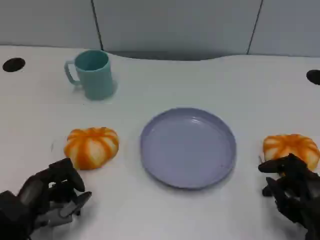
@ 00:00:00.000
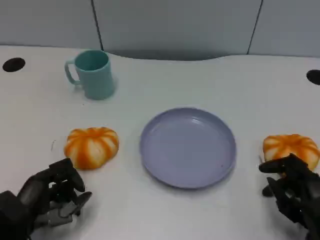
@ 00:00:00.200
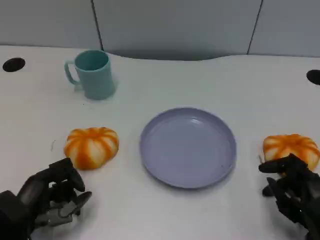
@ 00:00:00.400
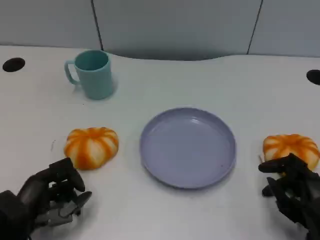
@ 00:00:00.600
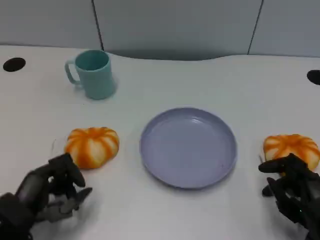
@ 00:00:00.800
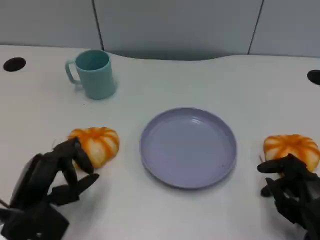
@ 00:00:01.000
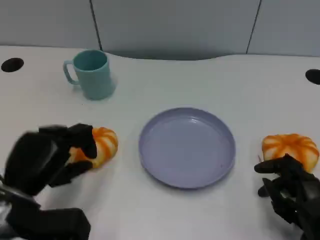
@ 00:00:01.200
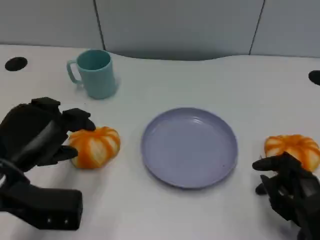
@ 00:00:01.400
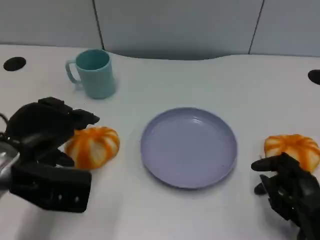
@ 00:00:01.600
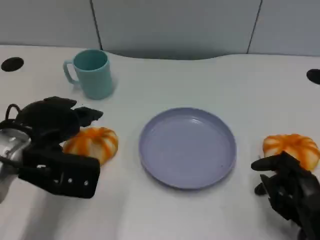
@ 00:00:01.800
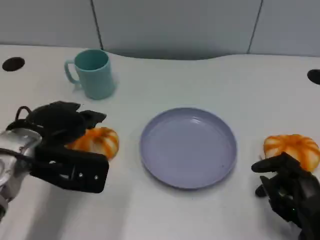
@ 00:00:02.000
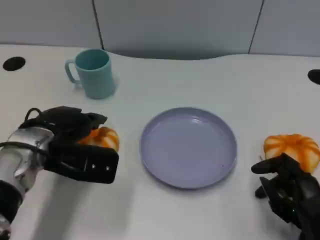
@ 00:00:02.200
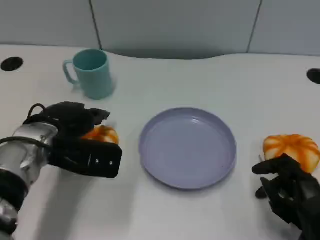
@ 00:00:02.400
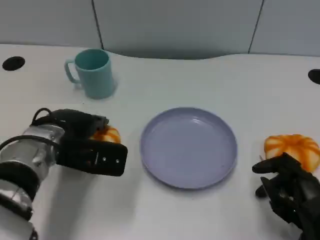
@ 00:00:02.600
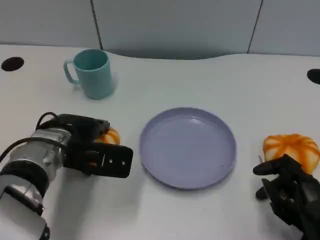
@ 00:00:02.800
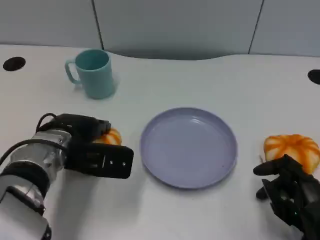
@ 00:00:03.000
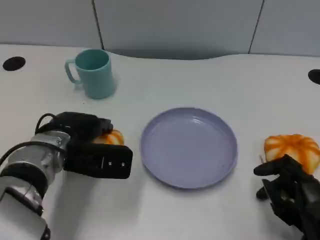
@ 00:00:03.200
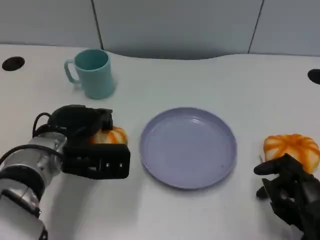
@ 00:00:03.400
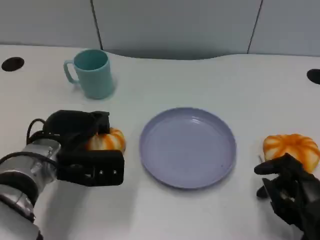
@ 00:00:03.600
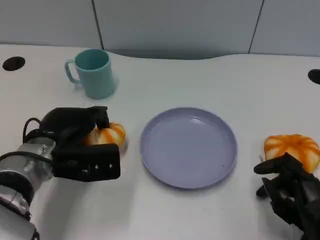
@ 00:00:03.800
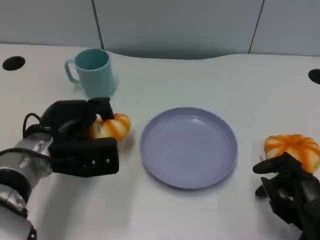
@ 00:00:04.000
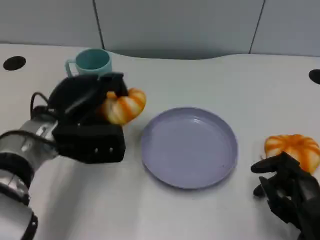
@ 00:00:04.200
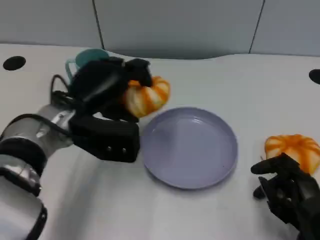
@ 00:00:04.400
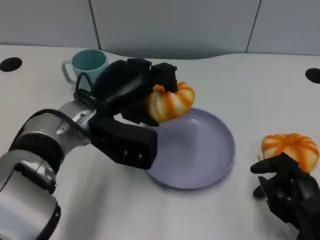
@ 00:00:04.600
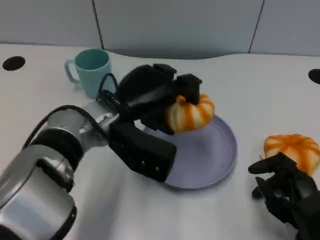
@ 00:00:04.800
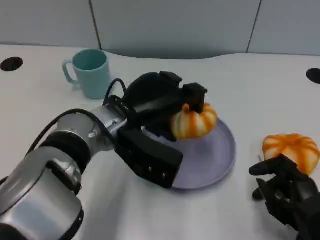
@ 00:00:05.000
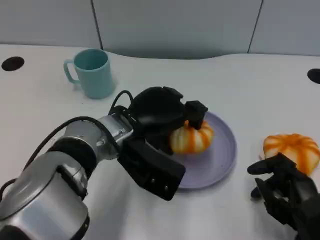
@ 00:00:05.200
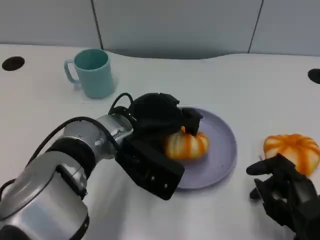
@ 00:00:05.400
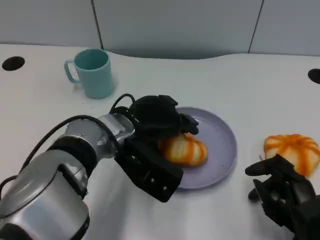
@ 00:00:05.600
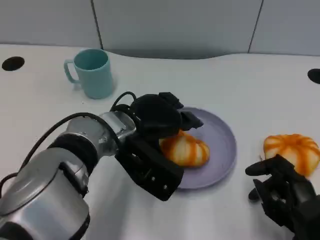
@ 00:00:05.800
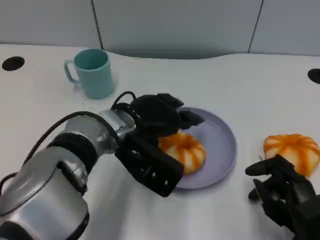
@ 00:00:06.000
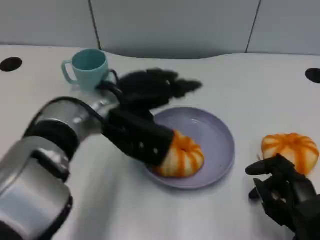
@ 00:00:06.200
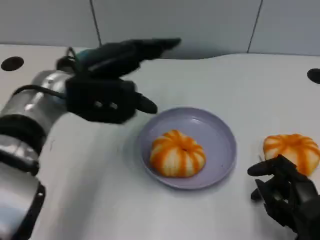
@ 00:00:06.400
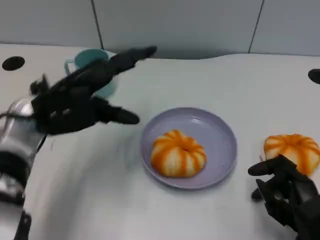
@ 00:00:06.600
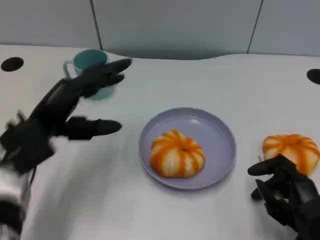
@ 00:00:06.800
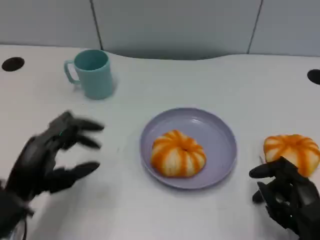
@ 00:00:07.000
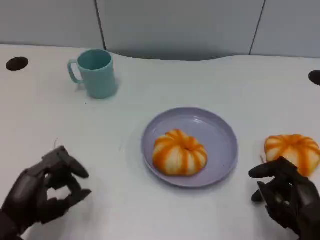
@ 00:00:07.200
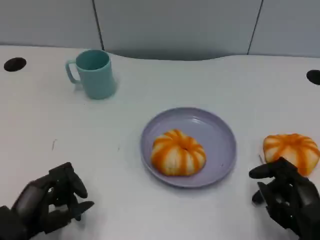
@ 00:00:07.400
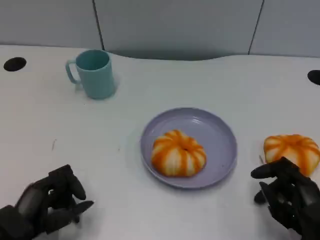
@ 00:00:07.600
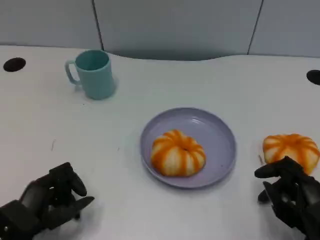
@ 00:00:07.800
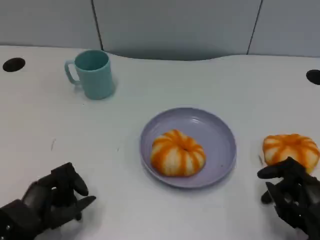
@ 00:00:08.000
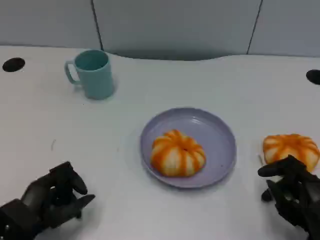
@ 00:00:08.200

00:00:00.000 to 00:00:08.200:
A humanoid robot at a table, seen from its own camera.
Task of the whole recording: Grasp the bread from the table and place it into the plate.
00:00:00.000 to 00:00:01.600: The left hand goes roughly 15 cm upward and forward.
00:00:01.600 to 00:00:03.200: The left hand moves to the right, approximately 5 cm.
00:00:03.200 to 00:00:05.000: The left hand is displaced to the right by roughly 10 cm.
00:00:05.000 to 00:00:06.600: The left hand heads to the left, covering roughly 10 cm.
00:00:06.600 to 00:00:08.200: The left hand heads downward and backward, covering about 20 cm.

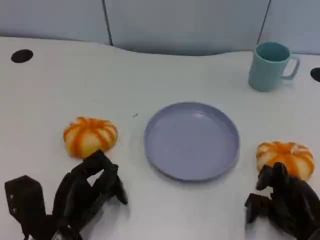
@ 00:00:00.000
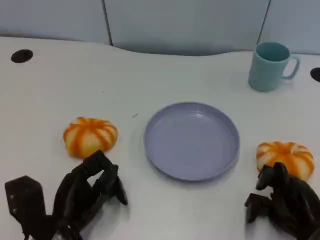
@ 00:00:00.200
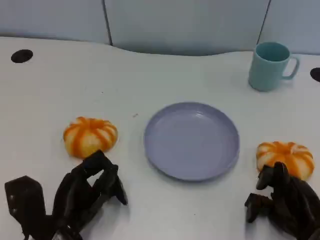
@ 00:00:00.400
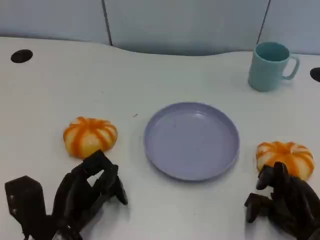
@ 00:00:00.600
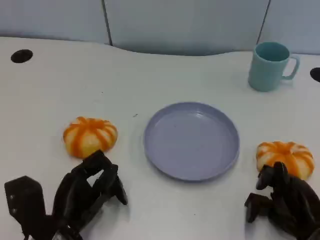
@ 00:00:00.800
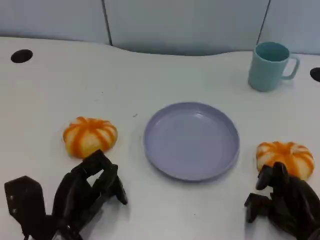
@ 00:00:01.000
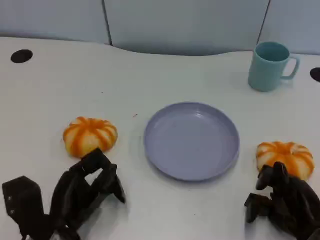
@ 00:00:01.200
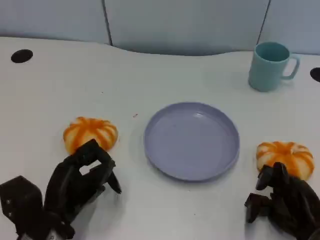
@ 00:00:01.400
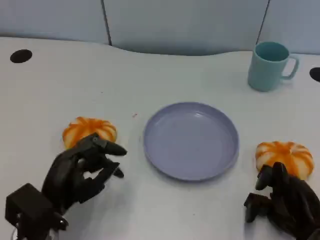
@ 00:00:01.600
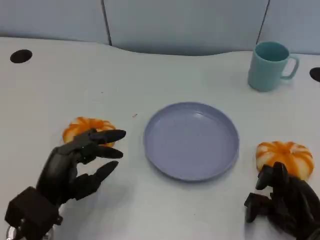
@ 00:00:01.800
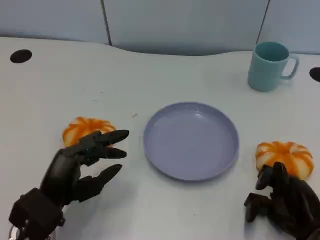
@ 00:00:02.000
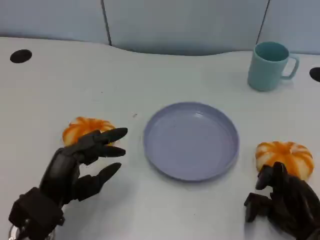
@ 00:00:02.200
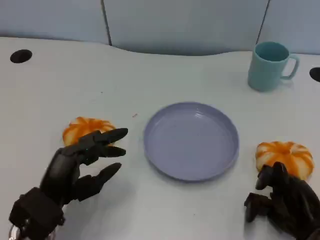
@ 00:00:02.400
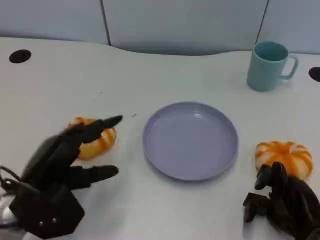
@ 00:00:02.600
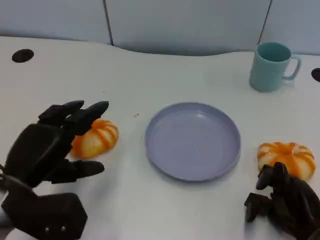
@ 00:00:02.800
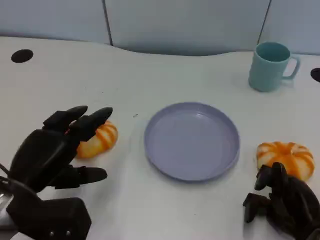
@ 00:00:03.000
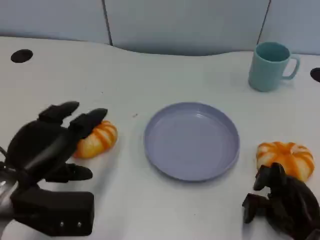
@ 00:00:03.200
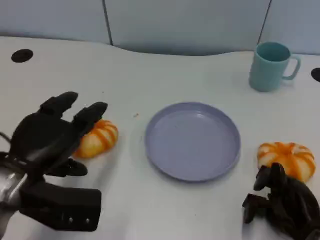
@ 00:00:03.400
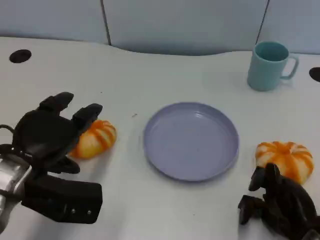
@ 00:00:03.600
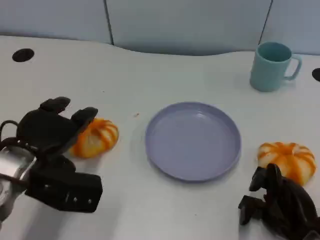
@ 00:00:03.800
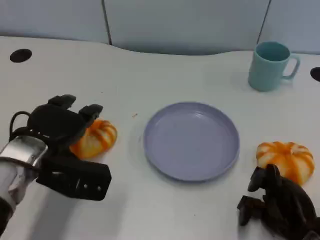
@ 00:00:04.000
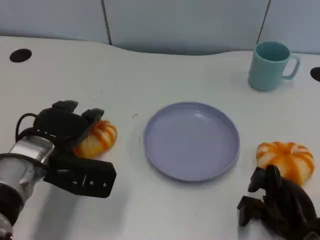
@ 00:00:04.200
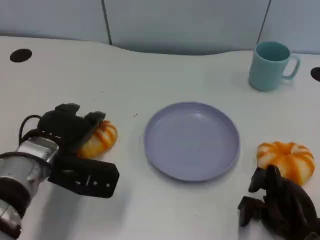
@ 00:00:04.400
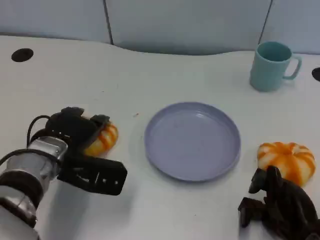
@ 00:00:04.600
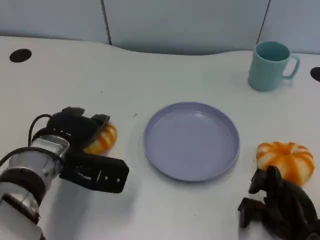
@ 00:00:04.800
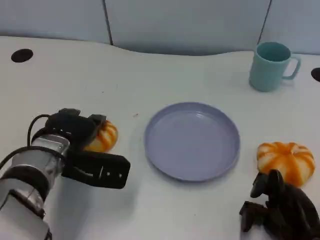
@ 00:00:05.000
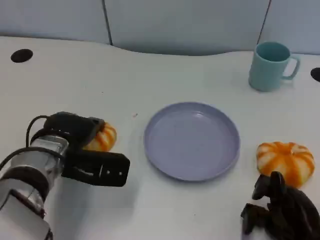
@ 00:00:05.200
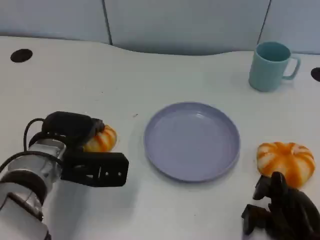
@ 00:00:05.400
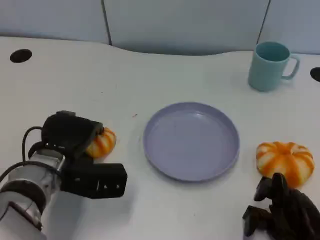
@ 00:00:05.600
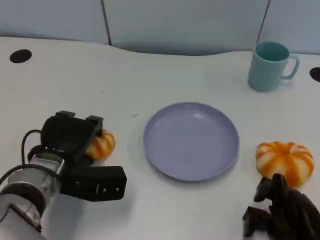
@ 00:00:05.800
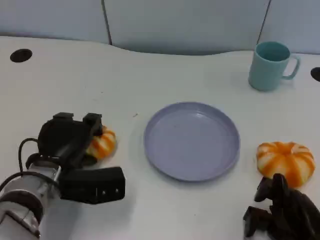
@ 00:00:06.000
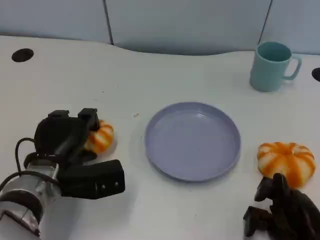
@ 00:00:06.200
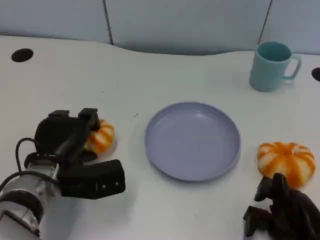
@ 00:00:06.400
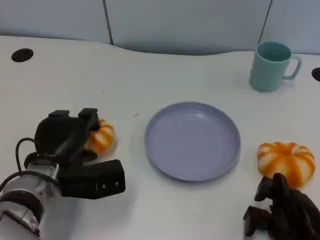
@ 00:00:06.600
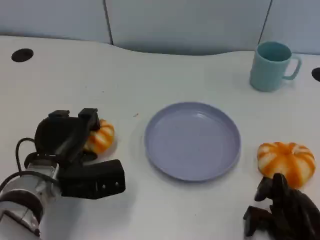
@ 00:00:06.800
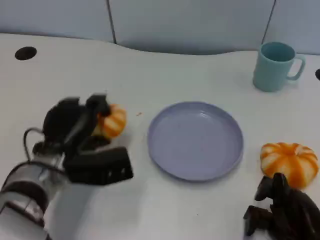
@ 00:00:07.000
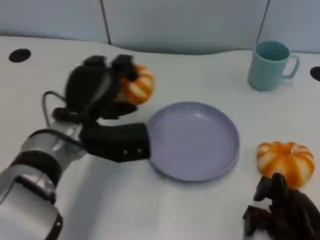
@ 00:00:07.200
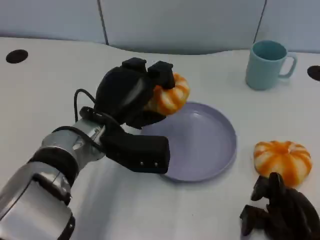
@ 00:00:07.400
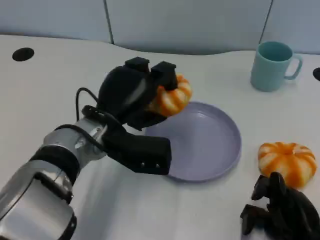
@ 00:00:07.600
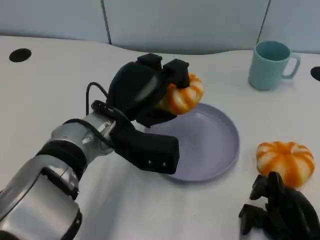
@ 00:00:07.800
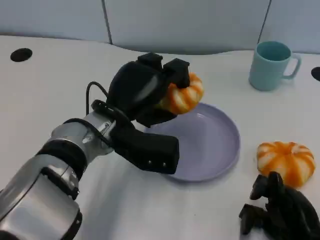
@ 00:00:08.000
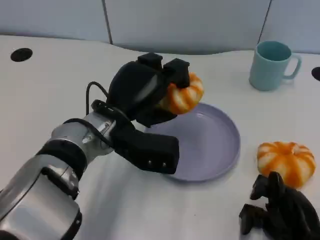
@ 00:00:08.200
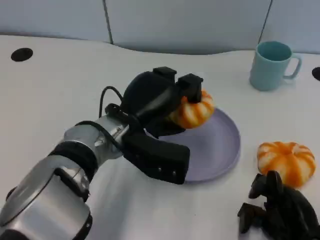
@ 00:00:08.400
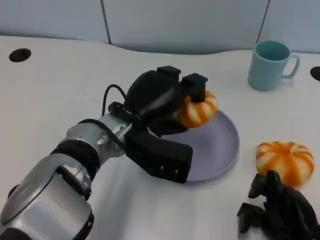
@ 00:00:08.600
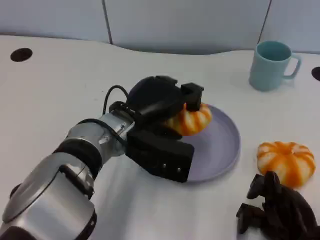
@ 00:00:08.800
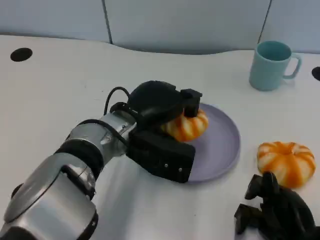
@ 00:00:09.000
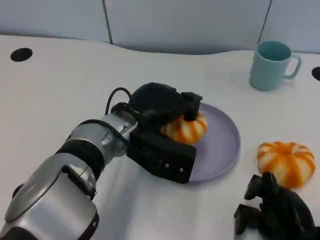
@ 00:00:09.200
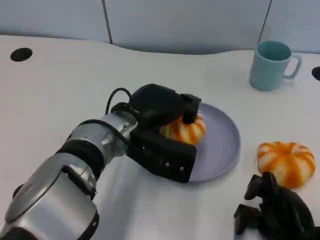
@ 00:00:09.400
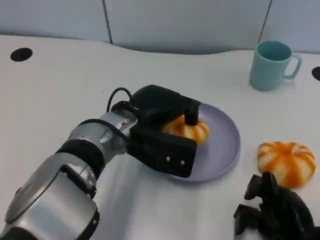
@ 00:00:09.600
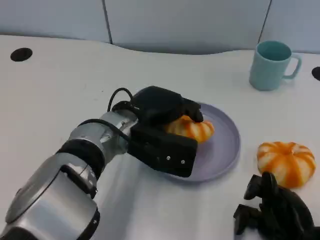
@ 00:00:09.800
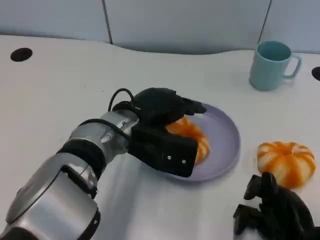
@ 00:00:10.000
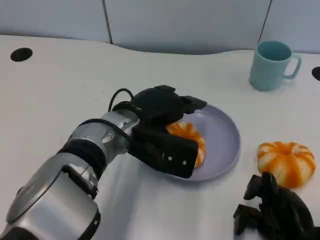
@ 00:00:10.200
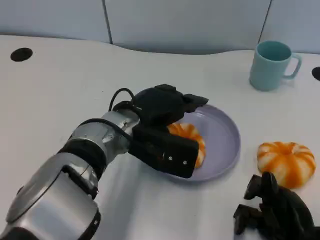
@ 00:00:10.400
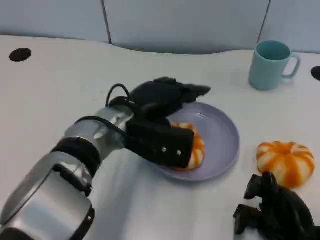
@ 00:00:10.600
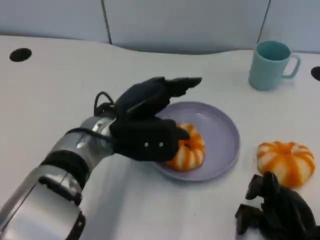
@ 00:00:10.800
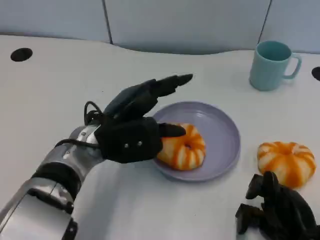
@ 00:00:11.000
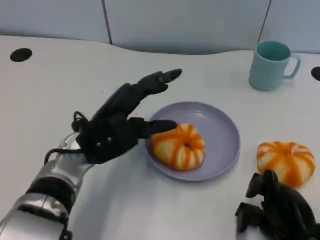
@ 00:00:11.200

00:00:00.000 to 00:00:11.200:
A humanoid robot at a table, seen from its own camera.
Task of the whole recording: Grasp the bread from the table and place it into the plate.
00:00:01.600 to 00:00:03.200: The left hand shifts roughly 10 cm upward.
00:00:03.200 to 00:00:04.800: The left hand is displaced forward and to the right by about 10 cm.
00:00:06.400 to 00:00:08.000: The left hand travels to the right and upward by some 10 cm.
00:00:09.600 to 00:00:11.200: The left hand moves to the left, some 5 cm.

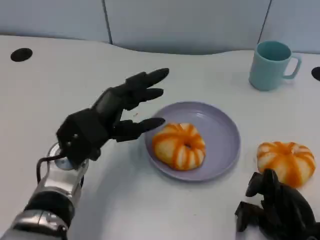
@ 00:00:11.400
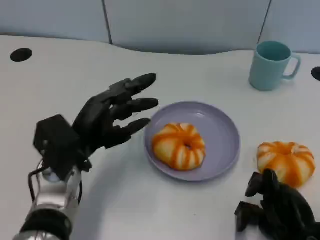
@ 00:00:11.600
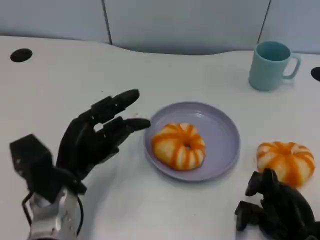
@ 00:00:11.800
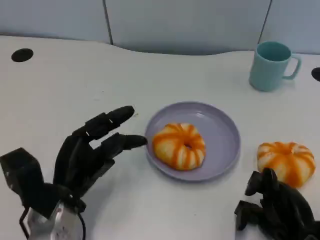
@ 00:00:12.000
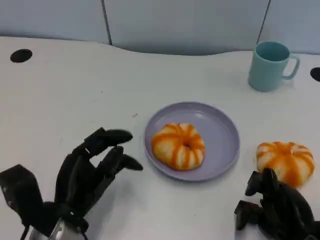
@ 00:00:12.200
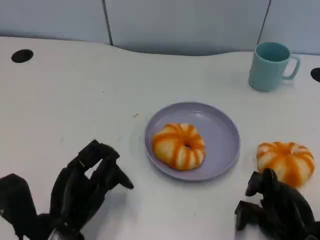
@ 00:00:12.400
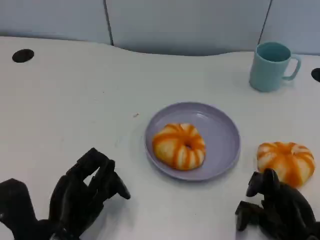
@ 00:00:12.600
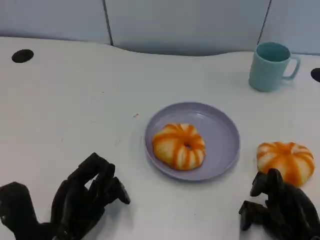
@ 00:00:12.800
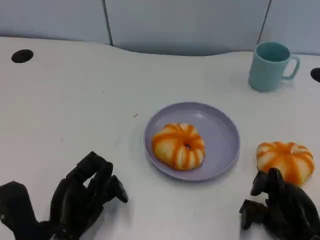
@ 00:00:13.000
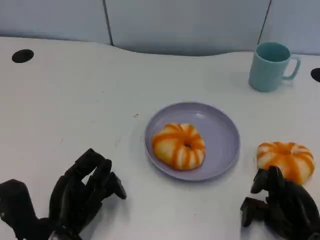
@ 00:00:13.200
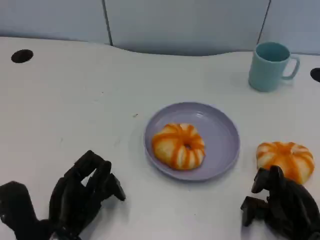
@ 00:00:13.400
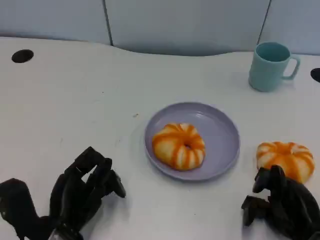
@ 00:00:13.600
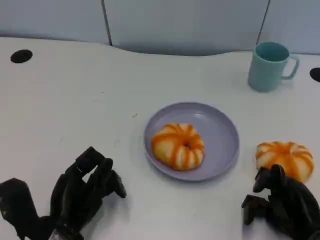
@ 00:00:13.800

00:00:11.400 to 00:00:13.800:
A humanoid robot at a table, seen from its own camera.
Task of the whole recording: Grasp the bread from the table and place it into the plate.
00:00:11.400 to 00:00:12.600: The left hand moves backward and downward, roughly 10 cm.
00:00:12.600 to 00:00:13.800: The hands make only small movements.
